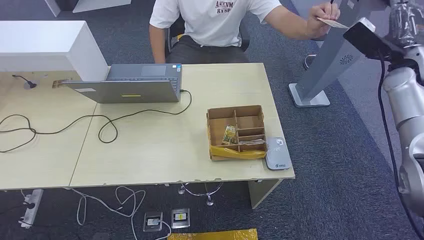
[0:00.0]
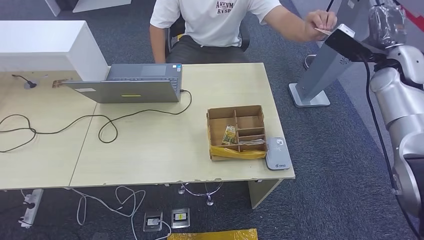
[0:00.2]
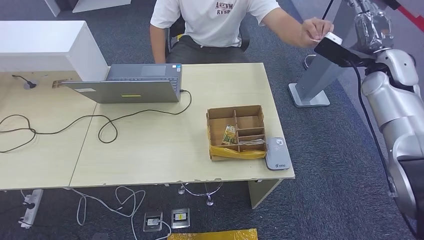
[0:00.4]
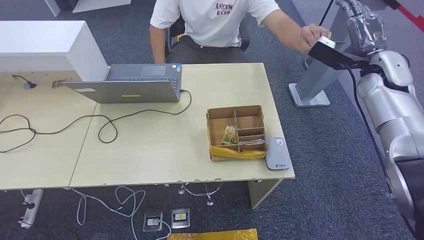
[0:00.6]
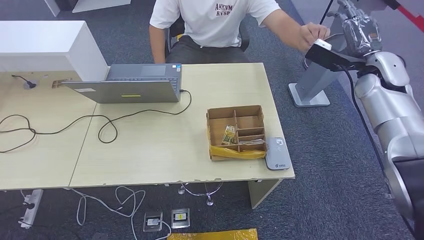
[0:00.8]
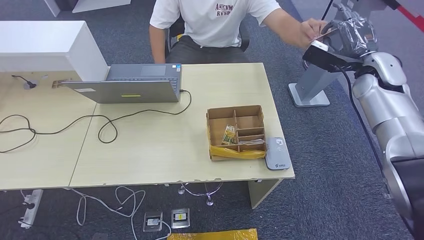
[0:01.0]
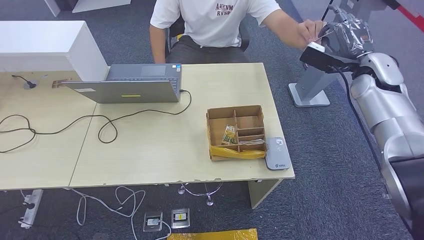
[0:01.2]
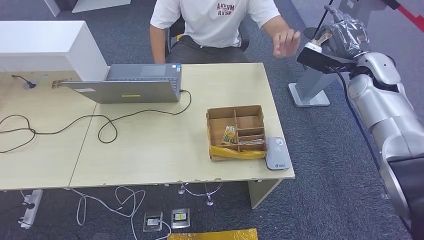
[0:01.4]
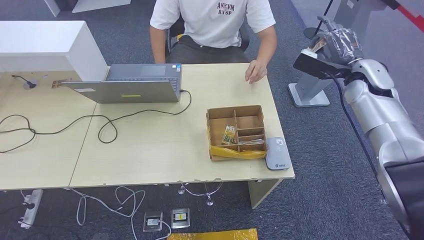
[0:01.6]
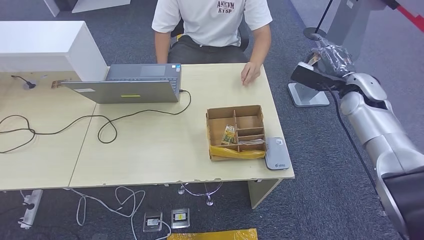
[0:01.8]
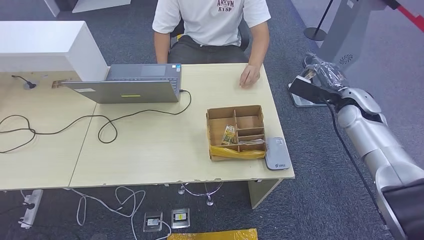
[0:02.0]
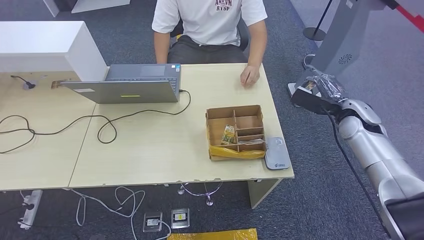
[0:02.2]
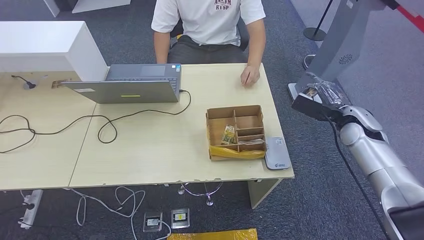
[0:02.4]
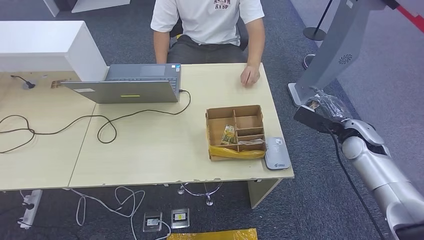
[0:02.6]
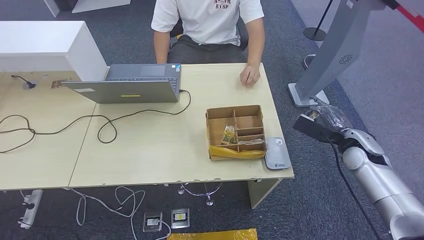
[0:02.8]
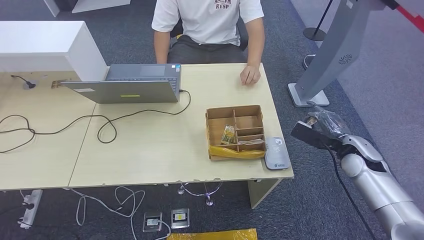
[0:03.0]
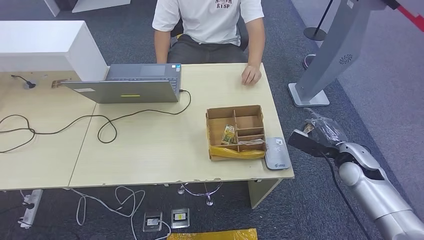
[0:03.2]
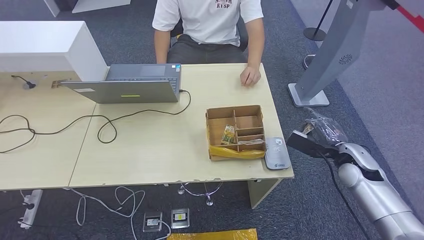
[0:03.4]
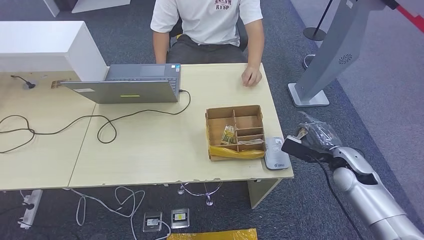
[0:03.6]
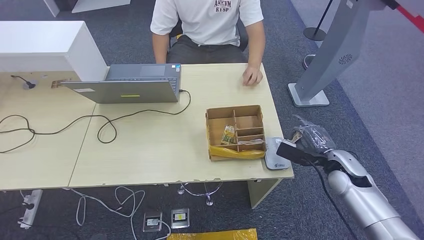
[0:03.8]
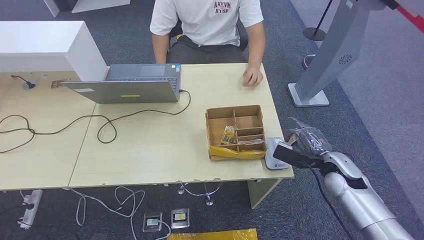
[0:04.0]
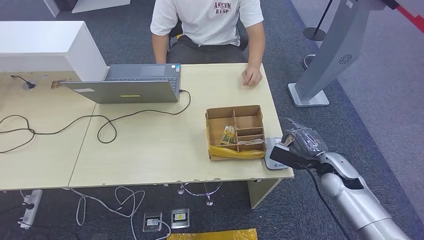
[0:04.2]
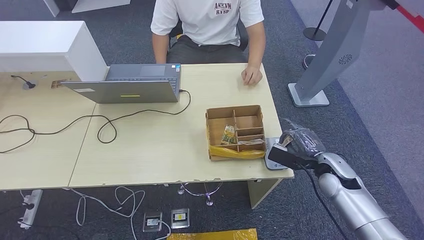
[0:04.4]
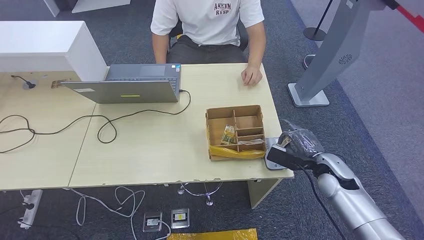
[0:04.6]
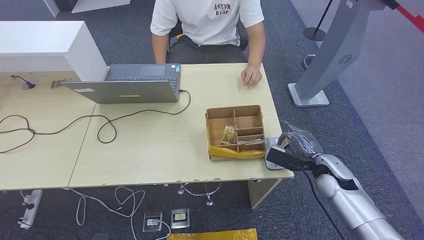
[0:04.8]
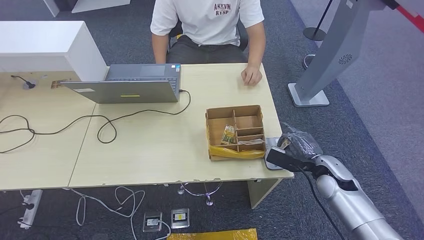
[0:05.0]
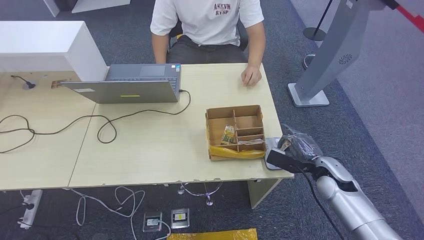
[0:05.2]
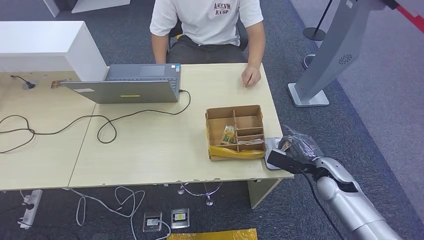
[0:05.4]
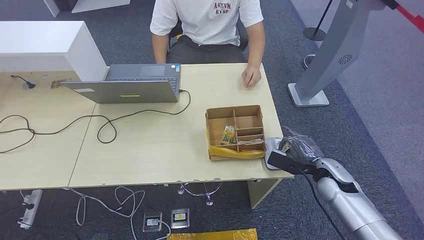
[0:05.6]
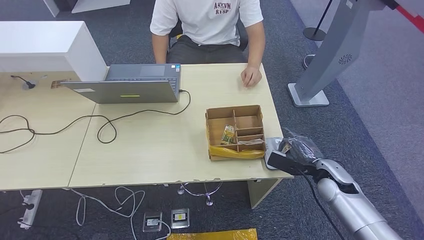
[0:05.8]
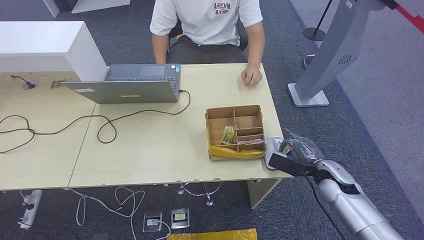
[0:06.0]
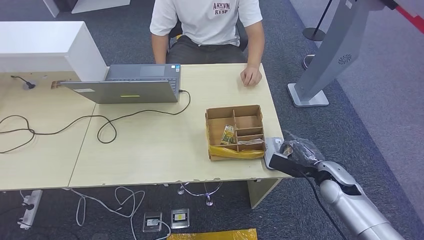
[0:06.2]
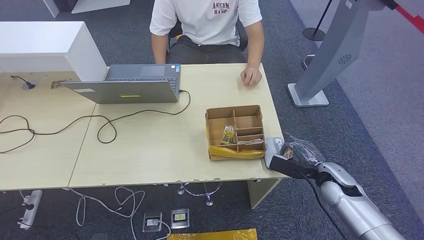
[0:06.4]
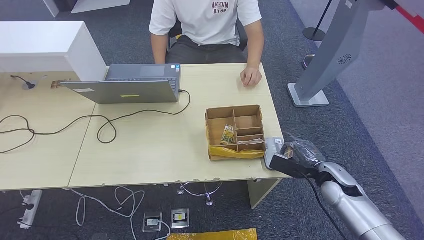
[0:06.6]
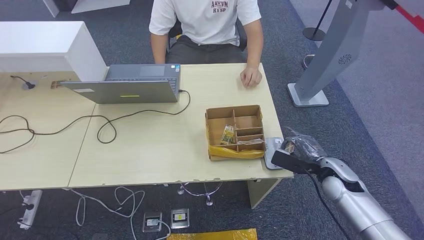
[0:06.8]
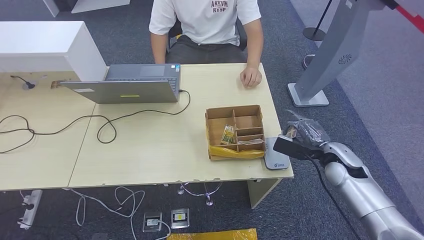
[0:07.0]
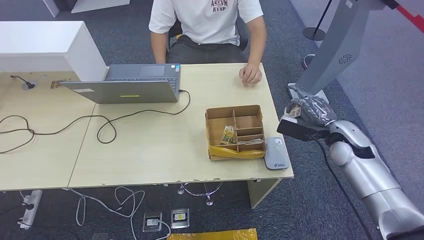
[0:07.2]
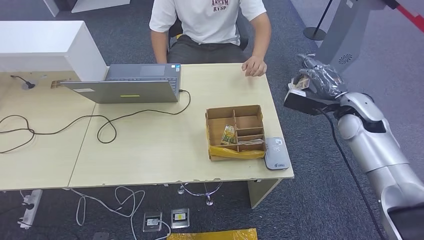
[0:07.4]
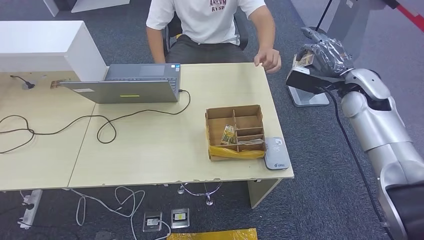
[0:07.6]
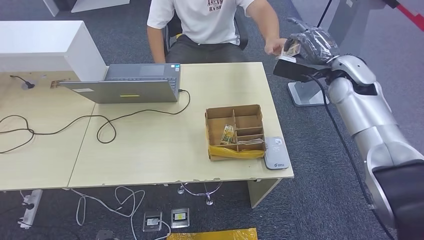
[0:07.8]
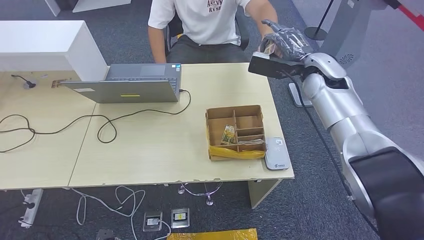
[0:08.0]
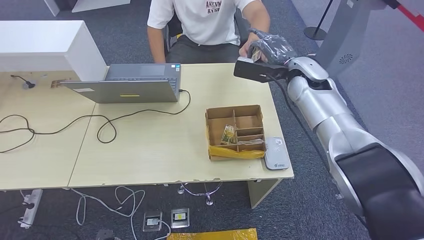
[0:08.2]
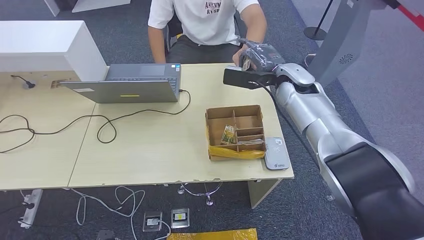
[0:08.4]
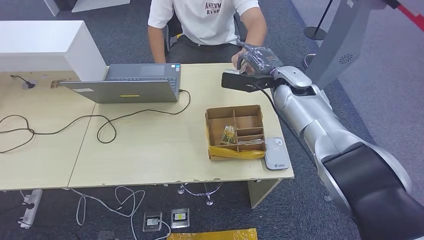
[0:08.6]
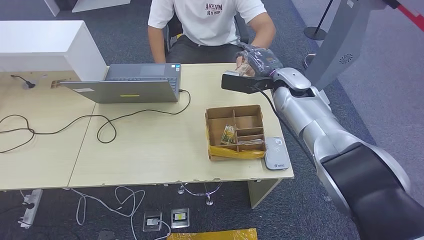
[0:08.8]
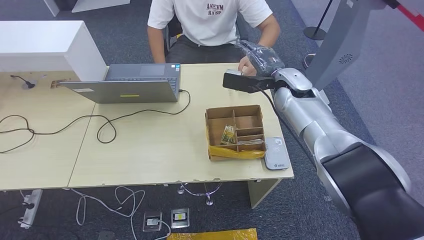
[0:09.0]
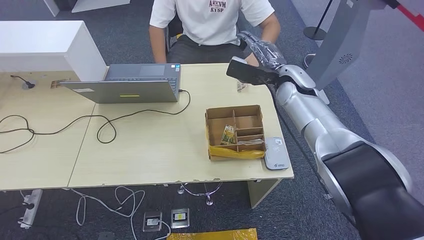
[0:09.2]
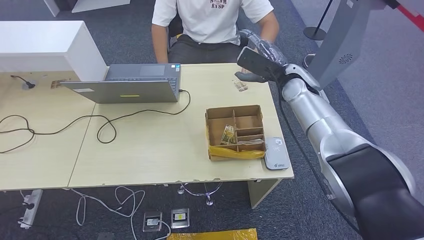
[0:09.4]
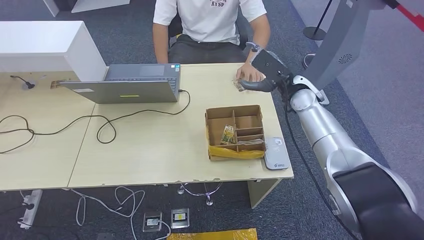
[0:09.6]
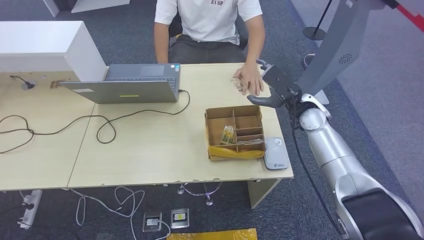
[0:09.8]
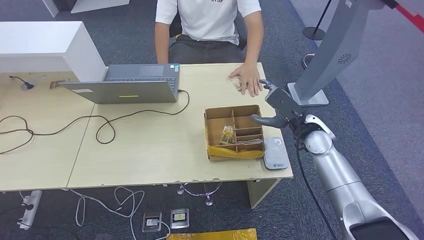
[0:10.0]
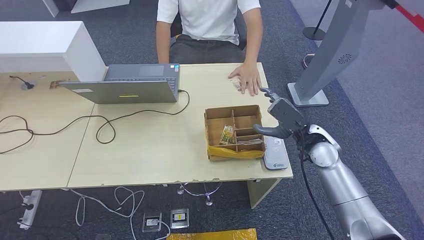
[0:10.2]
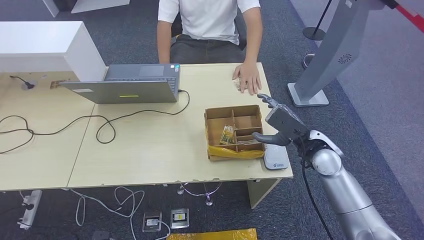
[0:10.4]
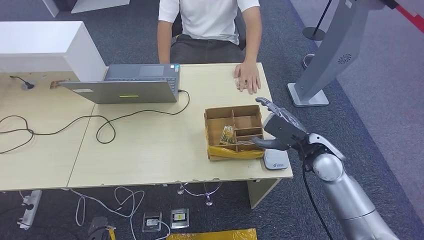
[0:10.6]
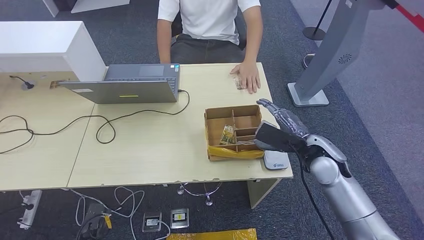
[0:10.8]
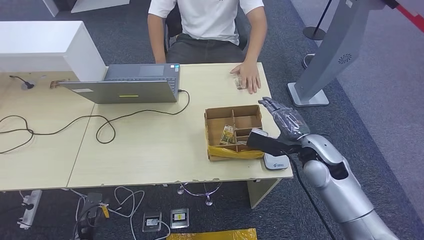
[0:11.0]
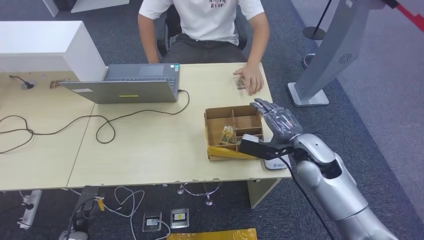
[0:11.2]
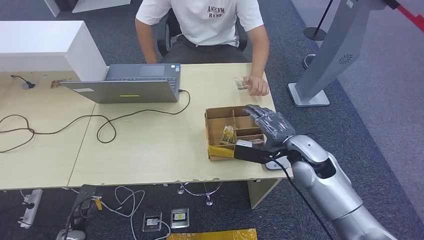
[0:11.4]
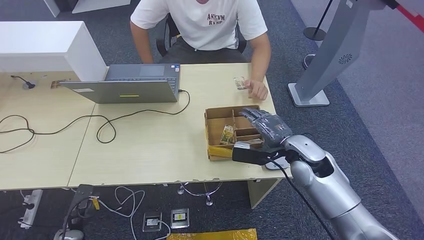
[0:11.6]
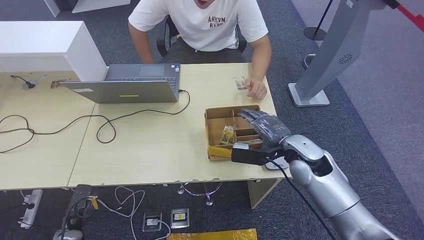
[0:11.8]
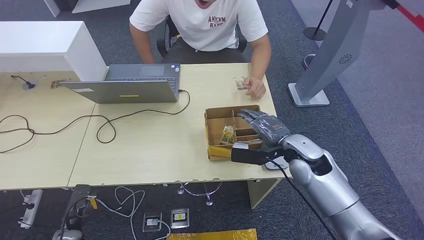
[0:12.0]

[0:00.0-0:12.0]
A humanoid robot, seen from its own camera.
Step, 0:00.0 to 0:02.2: Take the ID card from the person's hand.
Step, 0:02.4 to 0:07.2: Place the ID card on the card reader.
Step, 0:07.4 to 0:08.6: Hand the ID card to the person.
0:01.6 to 0:03.0: The right hand shifts approximately 20 cm downward and backward.
0:03.0 to 0:04.4: The right hand moves to the left, approximately 5 cm.
0:04.4 to 0:06.0: The hands make only small movements.
0:06.0 to 0:07.6: The right hand shifts approximately 25 cm upward and forward.
0:07.6 to 0:09.0: The right hand moves to the left, about 15 cm.
0:09.0 to 0:10.4: The right hand heads backward and downward, covering some 15 cm.
0:10.4 to 0:12.0: The left hand heads forward, to the left and upward, covering about 15 cm.

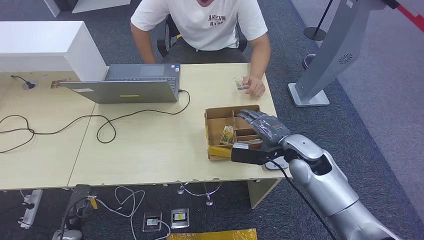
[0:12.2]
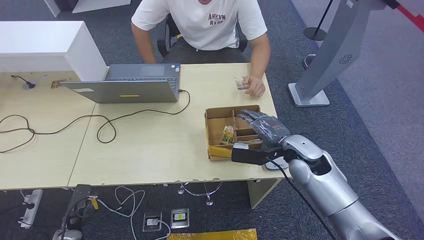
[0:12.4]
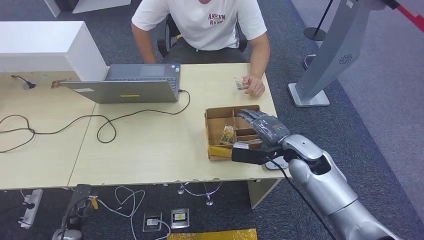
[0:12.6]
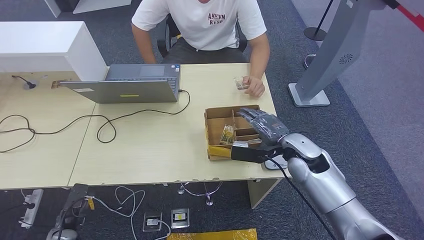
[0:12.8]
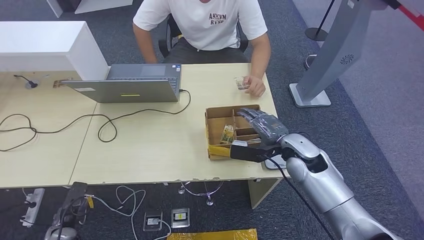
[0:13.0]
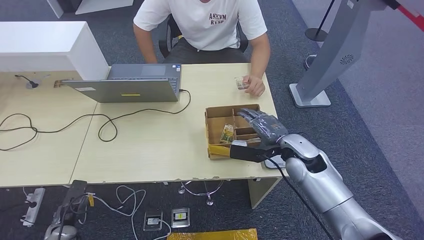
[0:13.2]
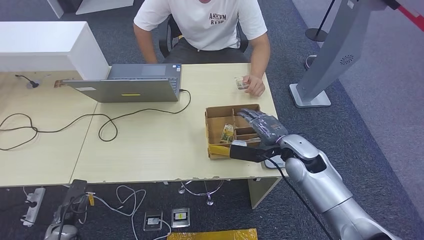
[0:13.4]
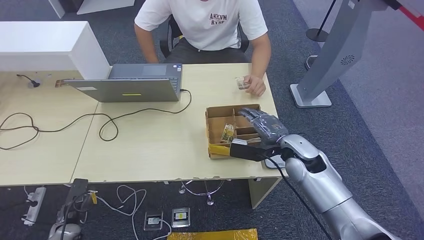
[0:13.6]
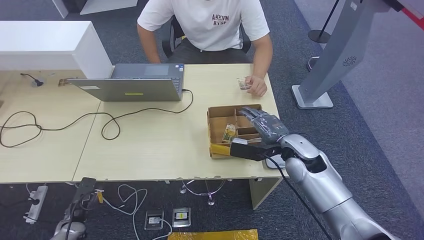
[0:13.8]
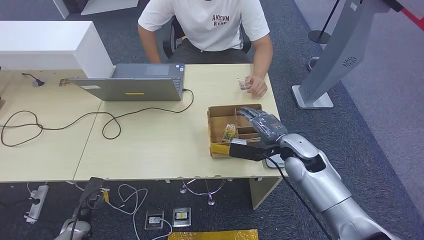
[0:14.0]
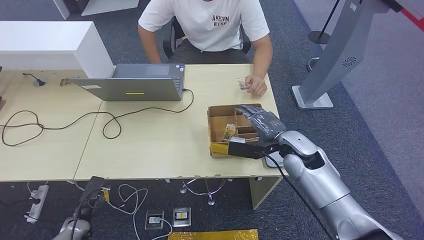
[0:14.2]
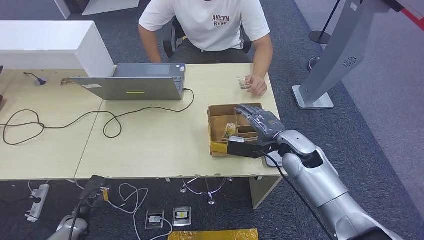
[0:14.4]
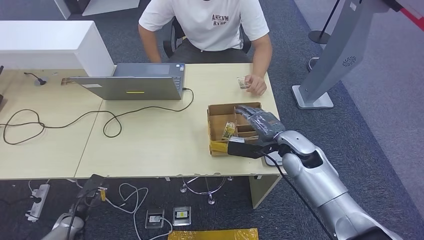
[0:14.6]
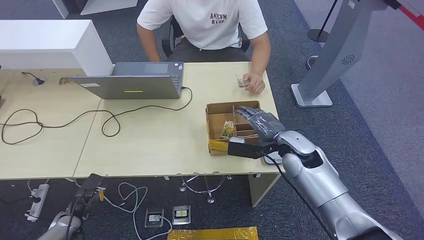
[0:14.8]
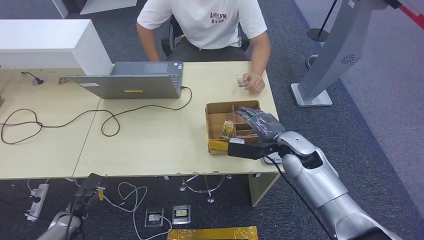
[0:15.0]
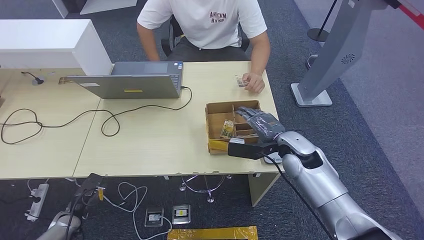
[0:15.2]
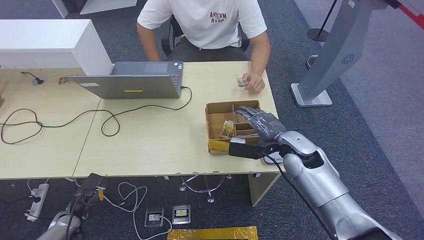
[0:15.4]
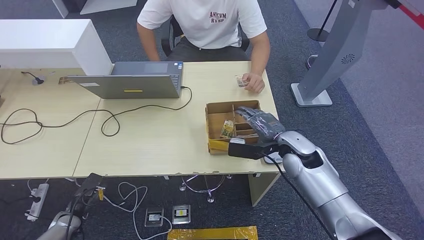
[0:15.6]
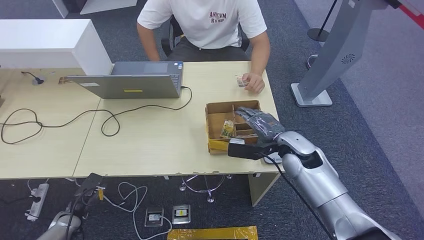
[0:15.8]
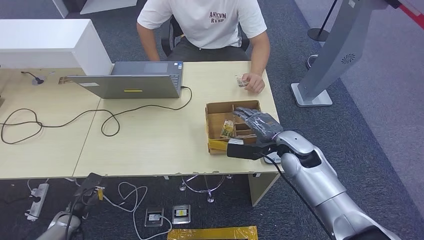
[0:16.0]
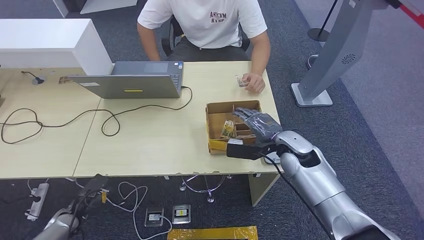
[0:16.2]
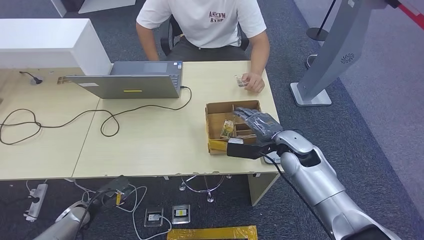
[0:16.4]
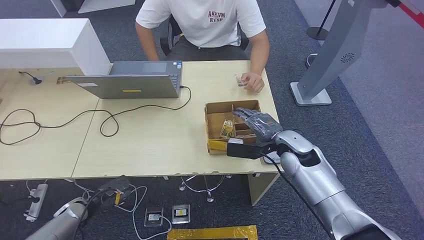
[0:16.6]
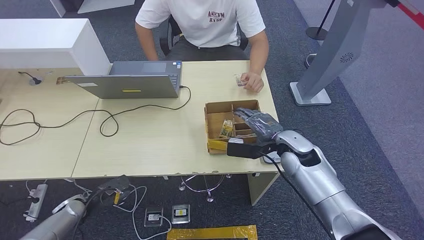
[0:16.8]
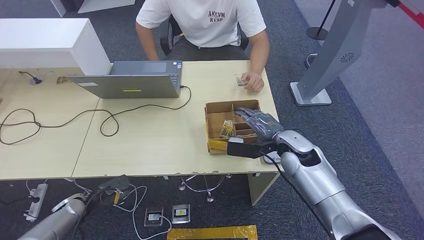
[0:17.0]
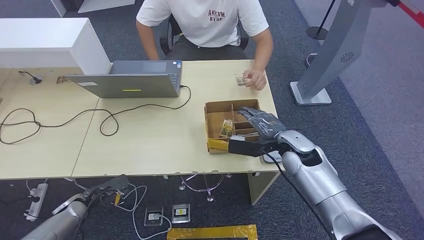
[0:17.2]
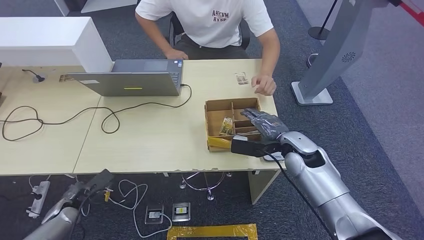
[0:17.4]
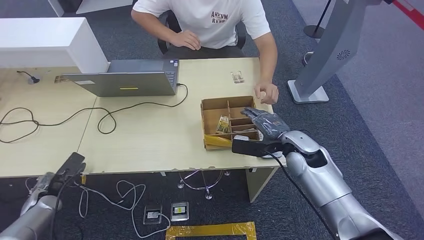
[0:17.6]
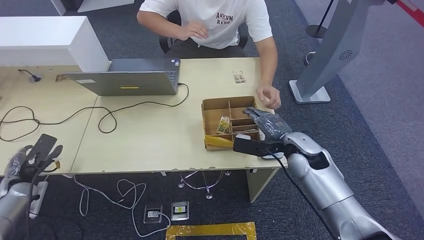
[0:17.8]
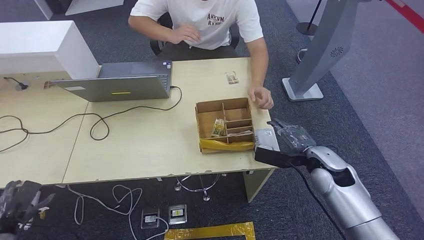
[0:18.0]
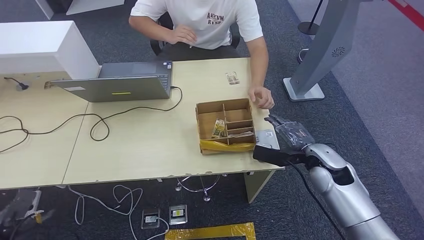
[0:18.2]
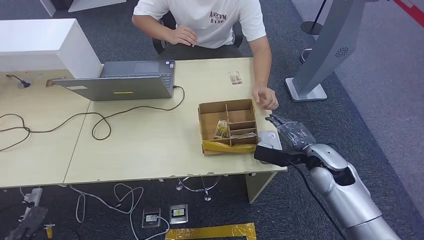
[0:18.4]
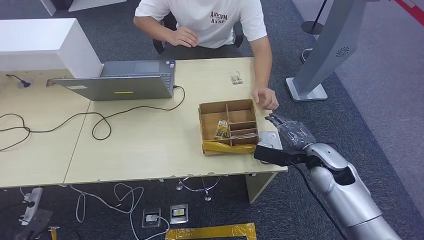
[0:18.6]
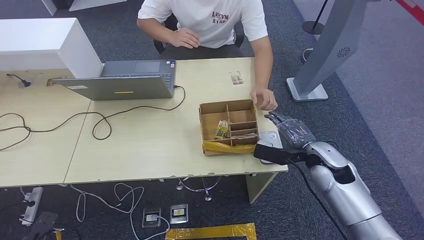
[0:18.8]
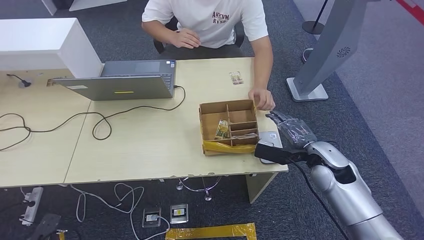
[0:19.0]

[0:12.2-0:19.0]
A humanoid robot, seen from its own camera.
0:12.2 to 0:15.0: The hands move only a little.
0:15.0 to 0:16.2: The hands make only small movements.
